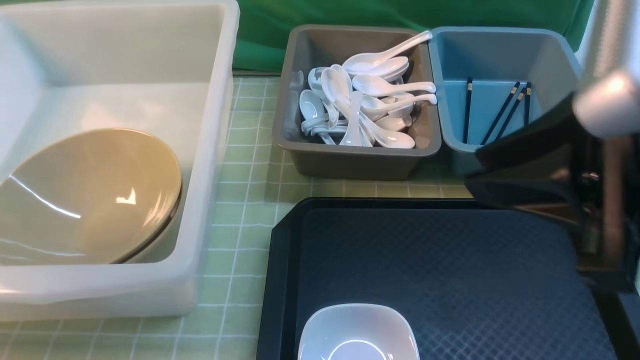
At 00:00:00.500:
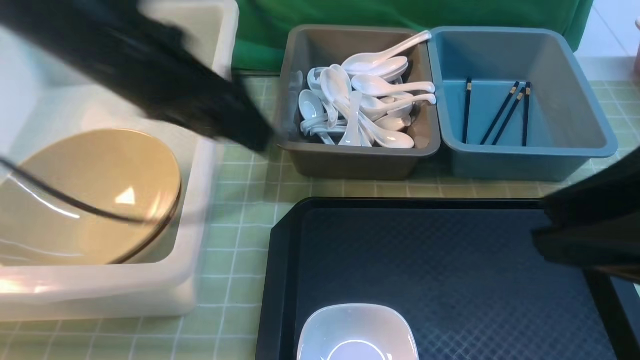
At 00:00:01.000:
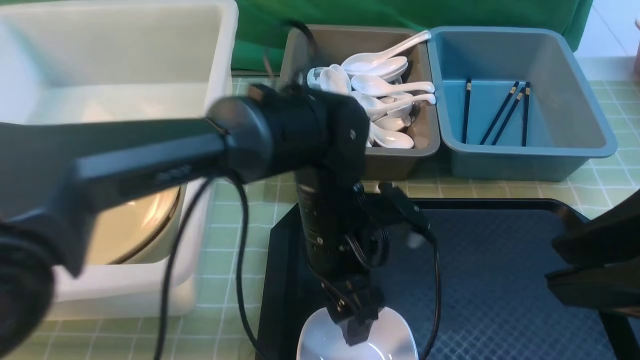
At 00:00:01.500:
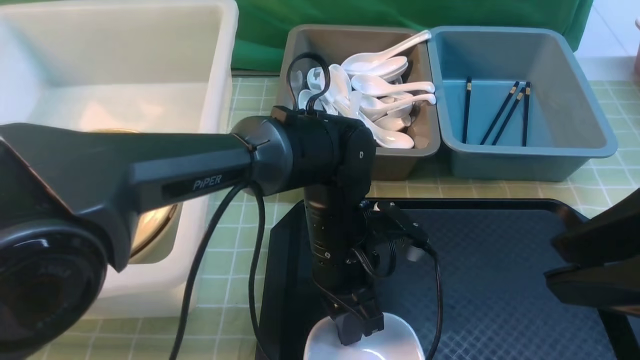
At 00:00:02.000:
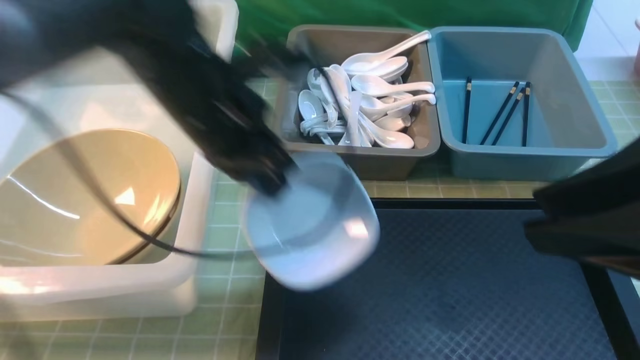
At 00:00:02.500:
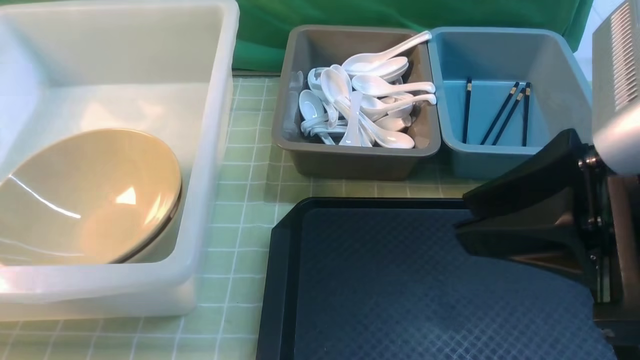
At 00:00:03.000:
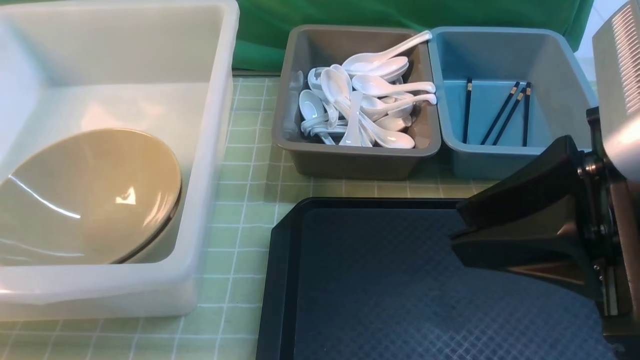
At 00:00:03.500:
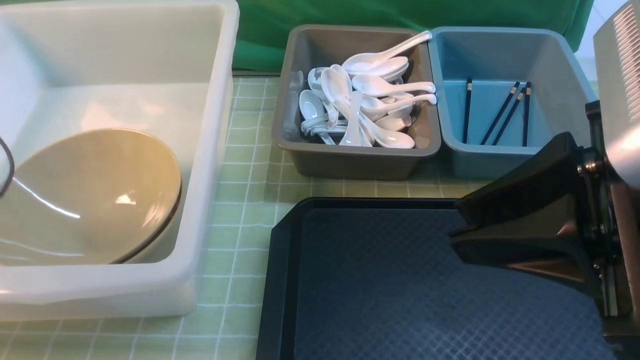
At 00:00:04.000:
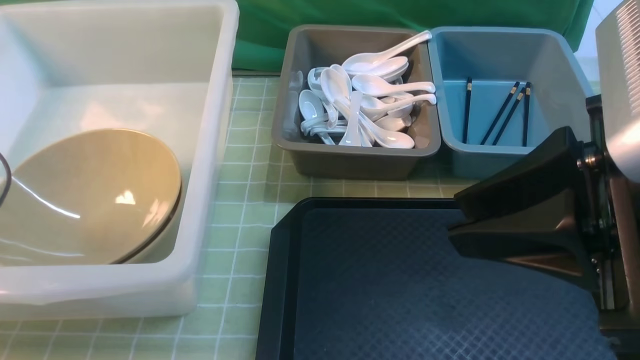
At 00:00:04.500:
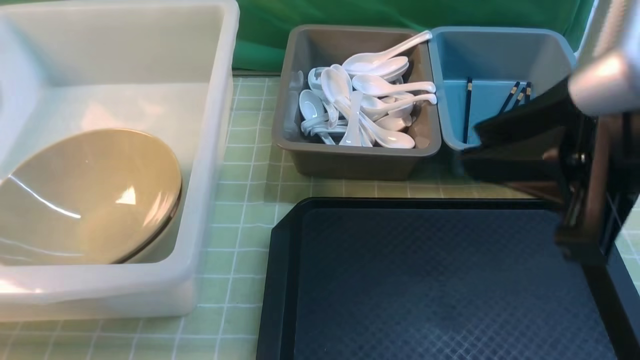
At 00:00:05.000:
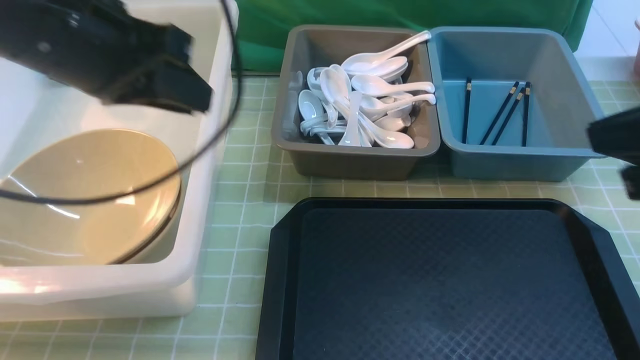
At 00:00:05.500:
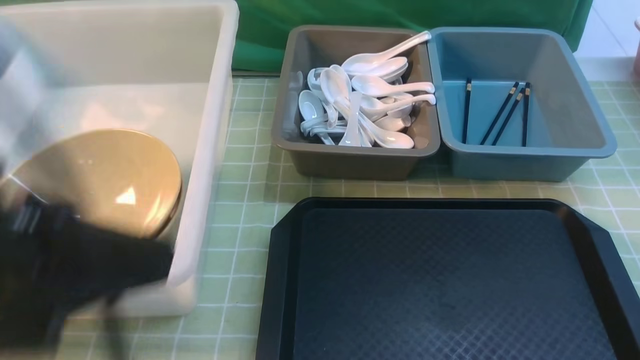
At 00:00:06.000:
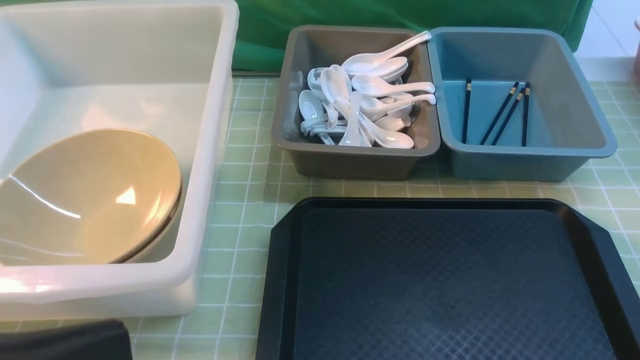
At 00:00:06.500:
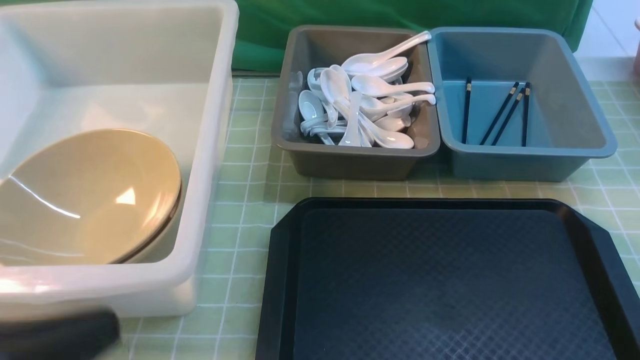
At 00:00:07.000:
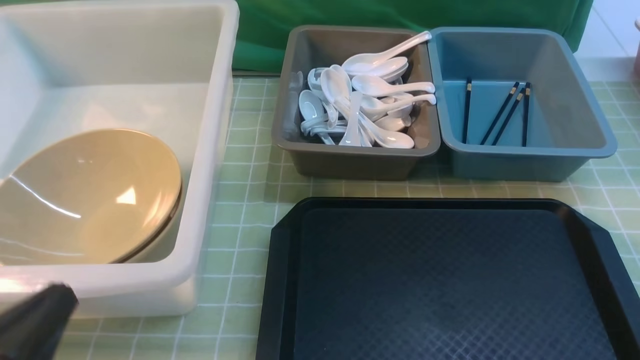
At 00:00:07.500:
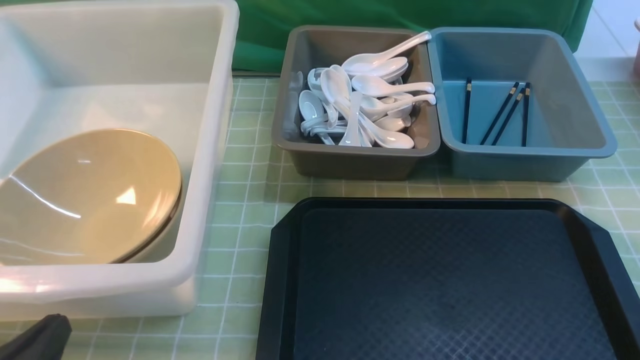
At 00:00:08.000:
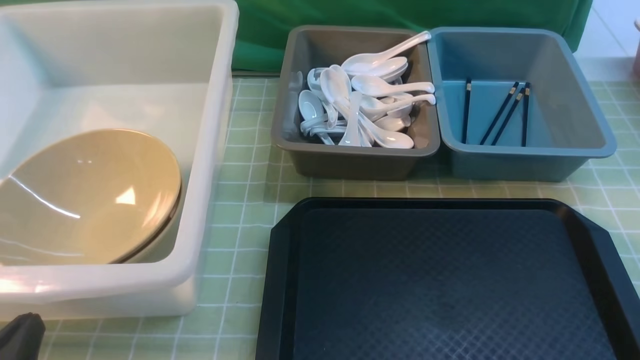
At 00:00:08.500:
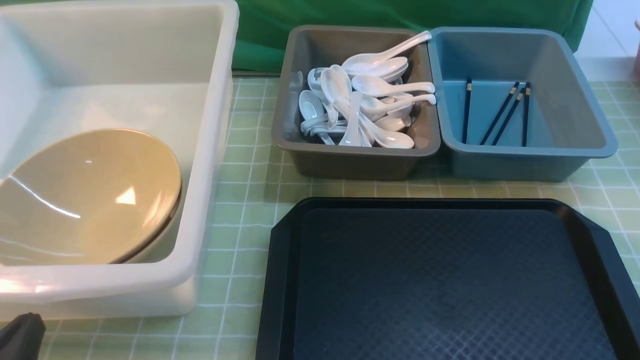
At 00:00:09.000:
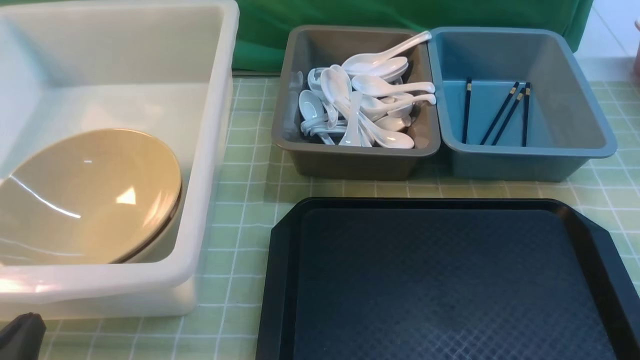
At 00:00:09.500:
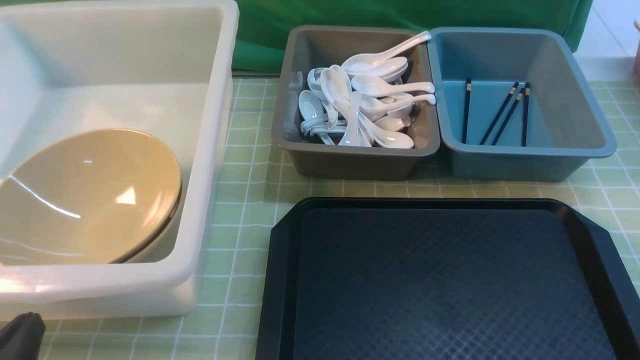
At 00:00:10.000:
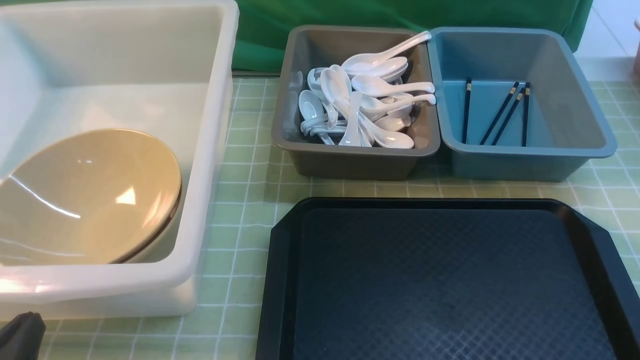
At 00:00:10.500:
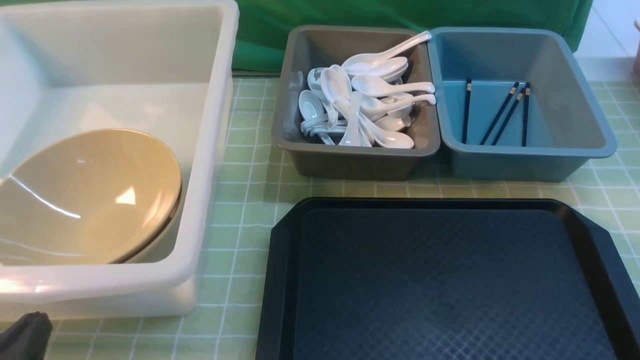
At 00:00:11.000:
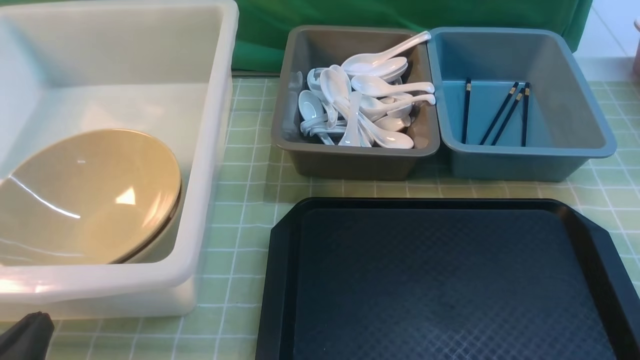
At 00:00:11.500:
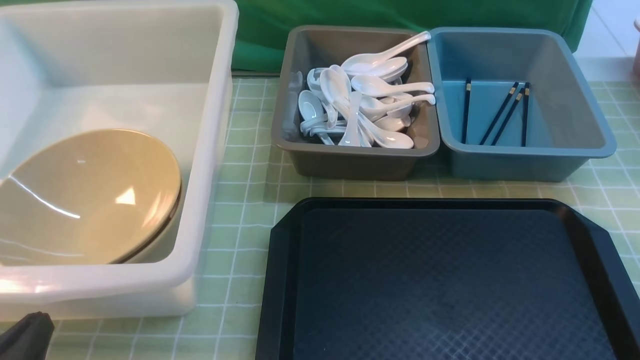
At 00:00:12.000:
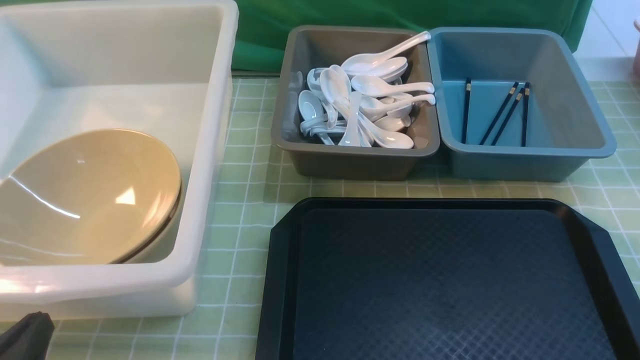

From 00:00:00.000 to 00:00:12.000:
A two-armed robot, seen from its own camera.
Task of the whole recording: on green table put chopsticks spoon bowls plates into blue grey white boxes.
Step, from 00:00:00.000 to 00:00:01.500: use the left arm to grab the plate.
Step, from 00:00:02.000 to 00:00:04.000: use the left arm to put the plate into the large storage box on the left.
From 00:00:00.000 to 00:00:02.000: The left gripper goes roughly 35 cm to the right, and closes up.
From 00:00:02.000 to 00:00:04.000: The left gripper shifts some 35 cm to the left, and opens up.
From 00:00:04.000 to 00:00:06.000: The right gripper shifts about 20 cm to the right, backward and downward, and closes its fingers, while the left gripper heads backward and to the right, covering roughly 35 cm, and closes up.
From 00:00:06.000 to 00:00:08.000: The left gripper moves downward, roughly 15 cm.
From 00:00:10.000 to 00:00:12.000: Neither gripper changes place.
